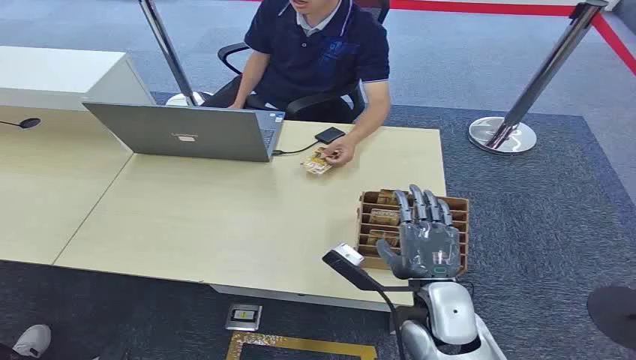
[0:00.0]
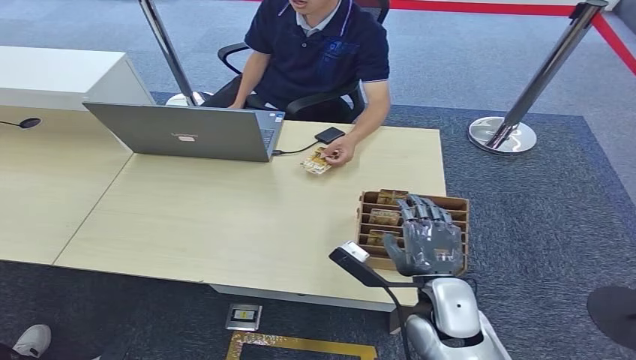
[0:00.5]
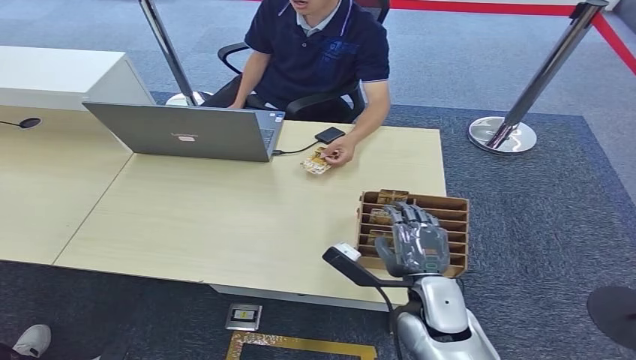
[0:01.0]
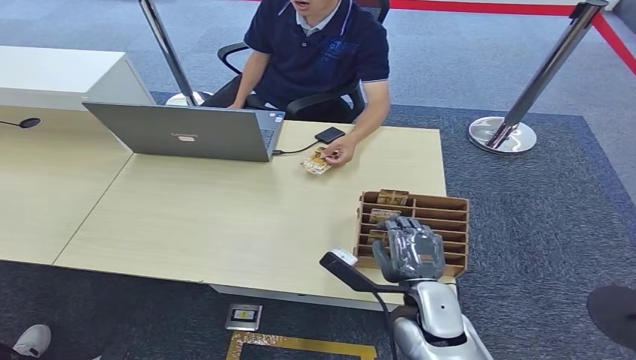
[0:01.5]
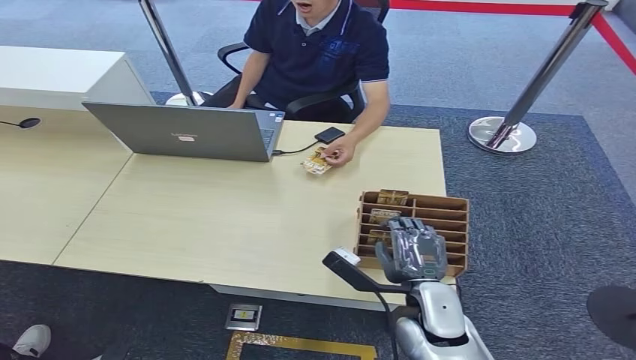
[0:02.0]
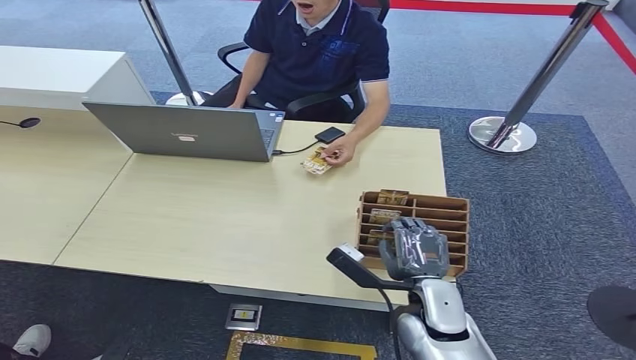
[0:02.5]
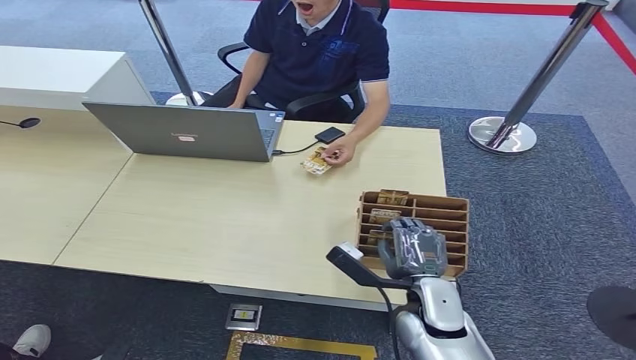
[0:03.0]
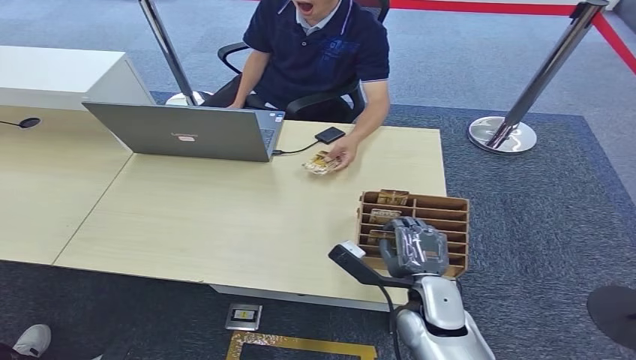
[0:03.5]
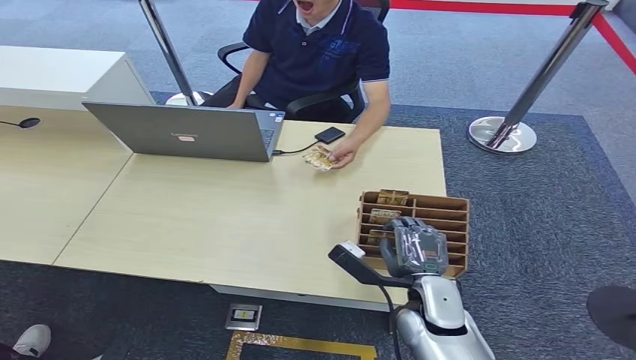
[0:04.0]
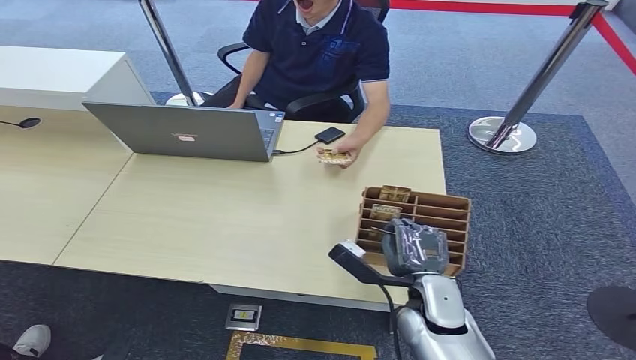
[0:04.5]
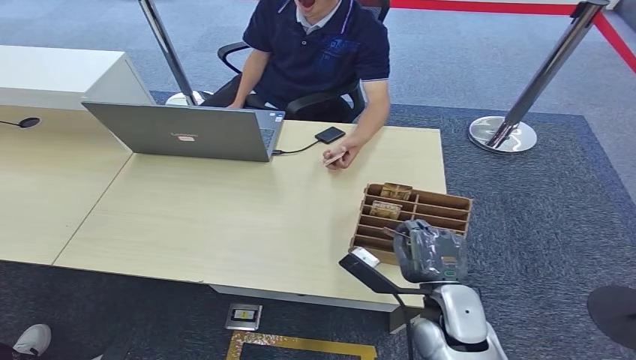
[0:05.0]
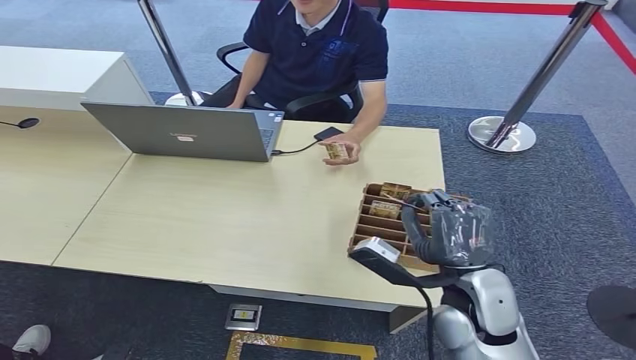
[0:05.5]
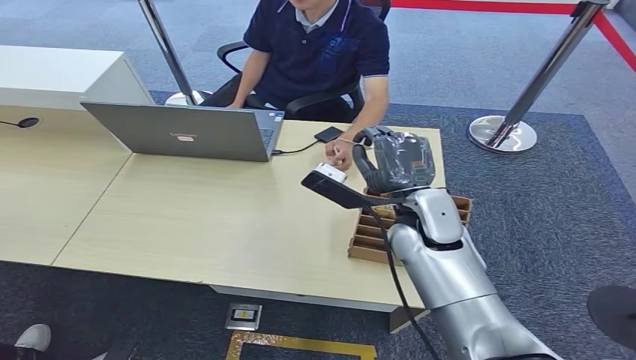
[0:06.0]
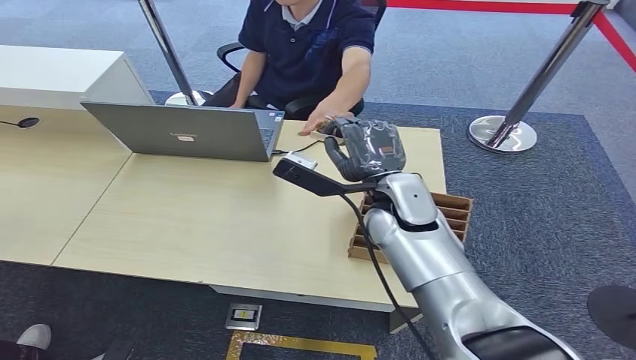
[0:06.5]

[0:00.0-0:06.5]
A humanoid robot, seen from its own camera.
Step, 0:00.0 to 0:05.5: Pick up the room card from the card holder.
Step, 0:06.0 to 0:06.5: Hand the room card to the target.
0:02.0 to 0:04.5: There are only small adjustments of the hands.
0:04.5 to 0:06.5: The right hand shifts some 20 cm upward and forward.
